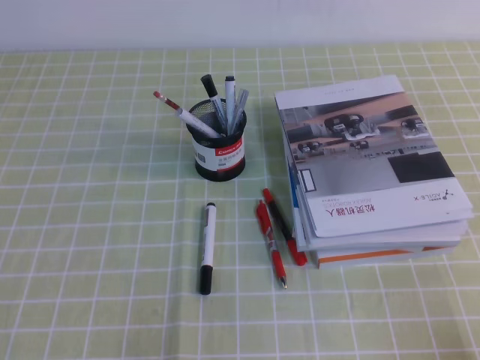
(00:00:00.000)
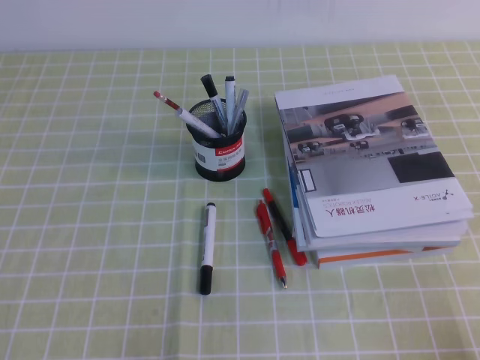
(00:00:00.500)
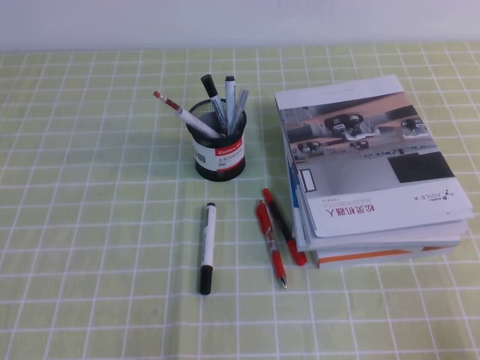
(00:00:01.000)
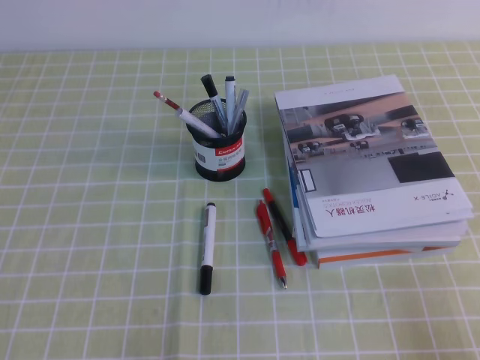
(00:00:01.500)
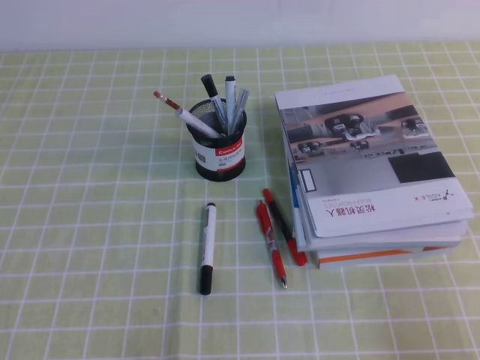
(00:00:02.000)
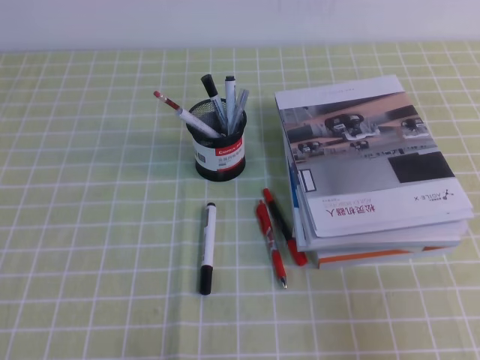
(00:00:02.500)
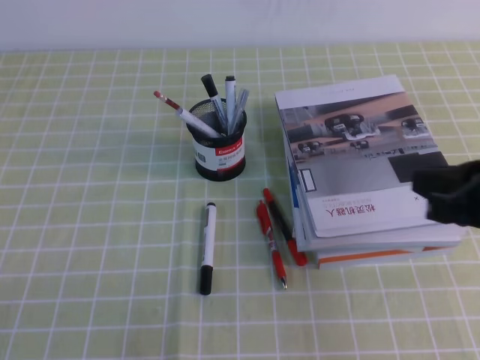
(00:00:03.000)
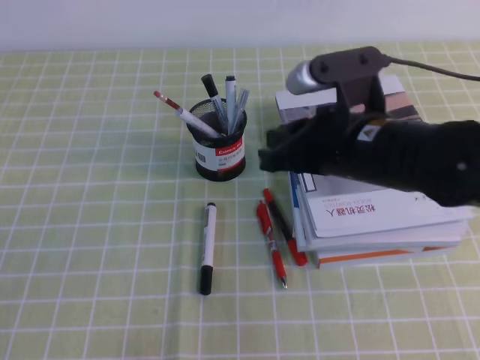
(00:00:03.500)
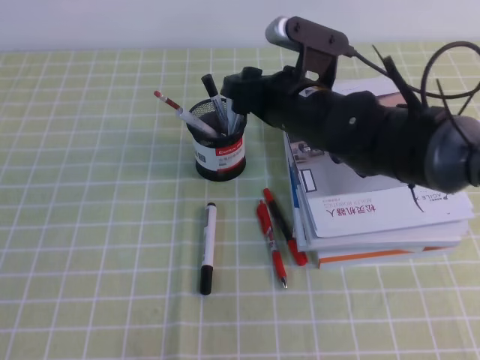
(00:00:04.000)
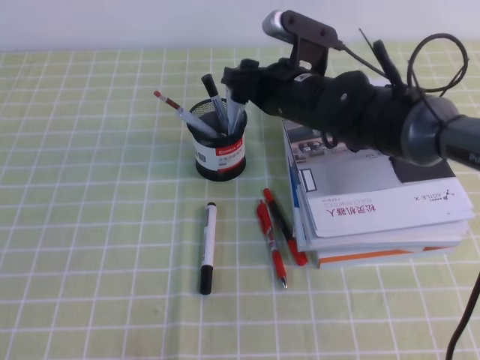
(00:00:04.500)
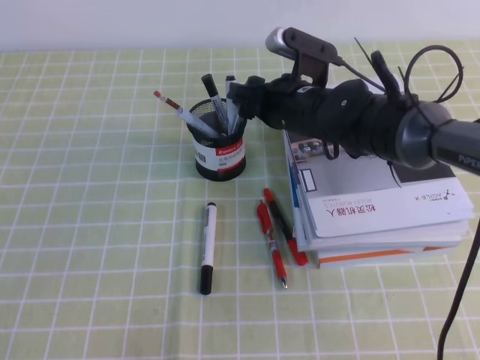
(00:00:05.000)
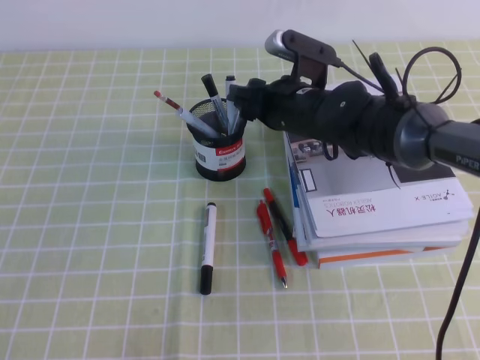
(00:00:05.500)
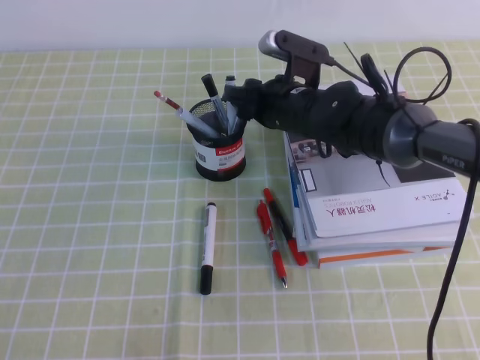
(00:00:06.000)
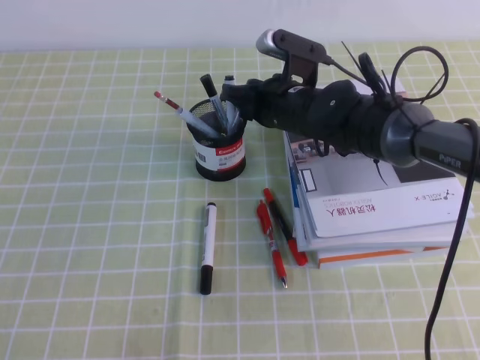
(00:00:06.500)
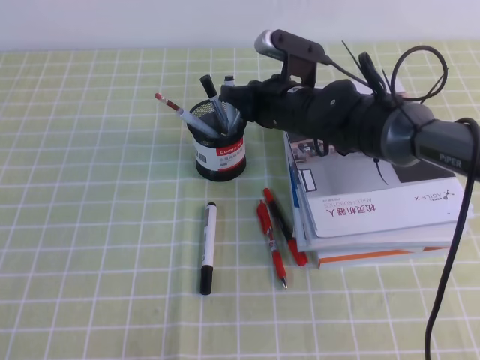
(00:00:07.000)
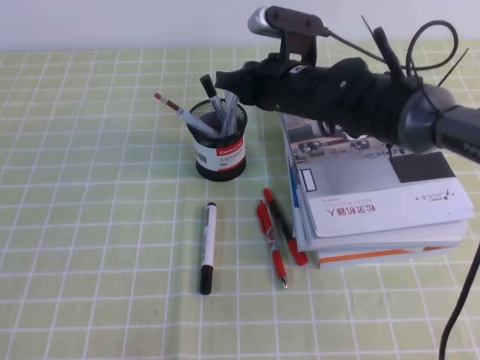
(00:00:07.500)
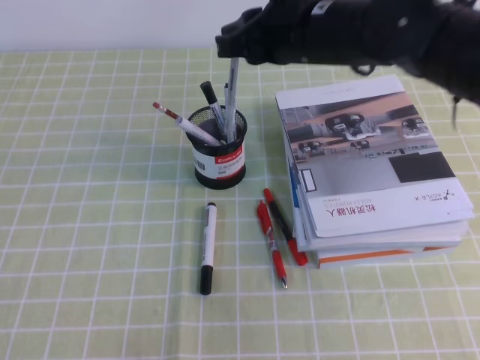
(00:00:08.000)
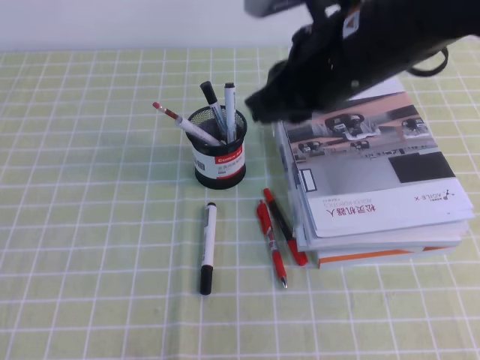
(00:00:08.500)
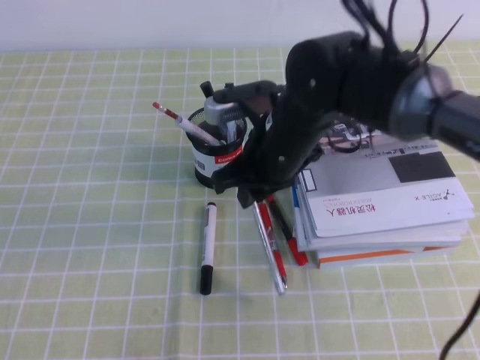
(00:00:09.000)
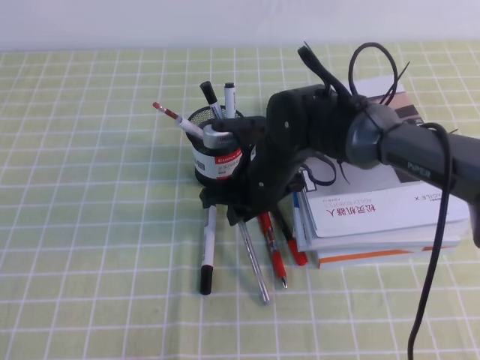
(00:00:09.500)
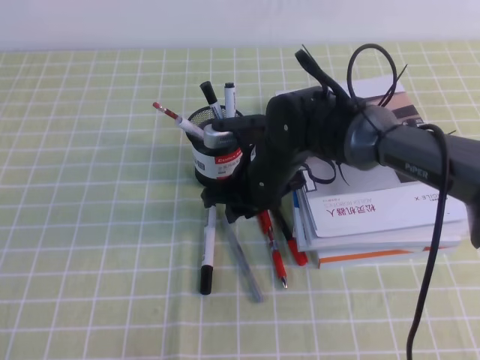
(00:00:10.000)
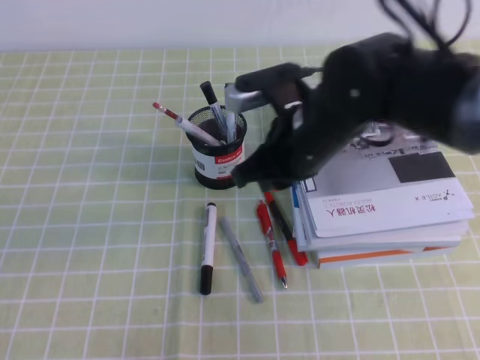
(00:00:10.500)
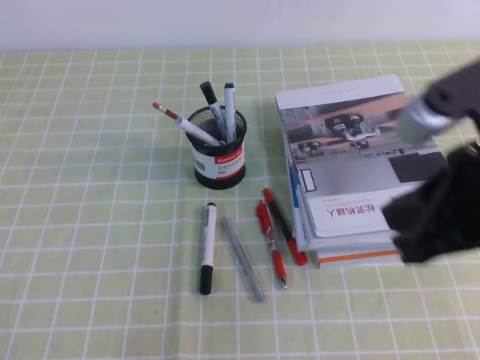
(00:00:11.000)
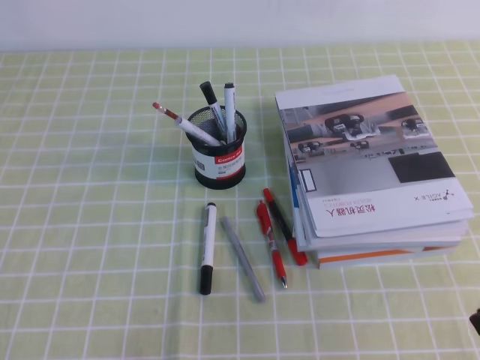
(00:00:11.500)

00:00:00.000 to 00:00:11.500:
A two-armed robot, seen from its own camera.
00:00:02.000 to 00:00:04.000: The right gripper heads forward and to the left, covering about 40 cm, and opens its fingers.
00:00:04.000 to 00:00:06.000: The right gripper shifts roughly 5 cm forward.
00:00:06.000 to 00:00:07.500: The right gripper closes.
00:00:07.500 to 00:00:09.500: The right gripper travels backward by roughly 5 cm, and travels upward and back again, roughly 10 cm each way.
00:00:09.500 to 00:00:11.500: The right gripper moves backward, to the right and upward, some 35 cm.

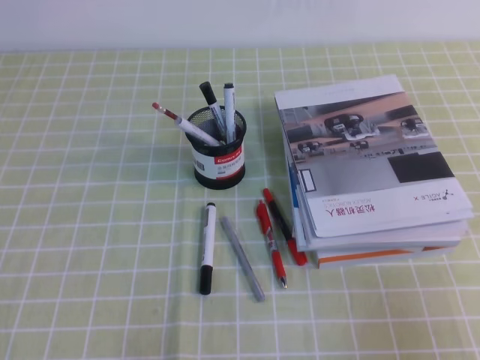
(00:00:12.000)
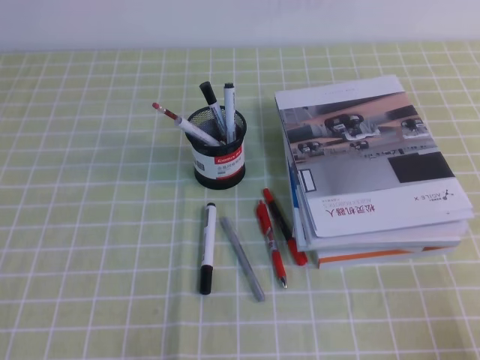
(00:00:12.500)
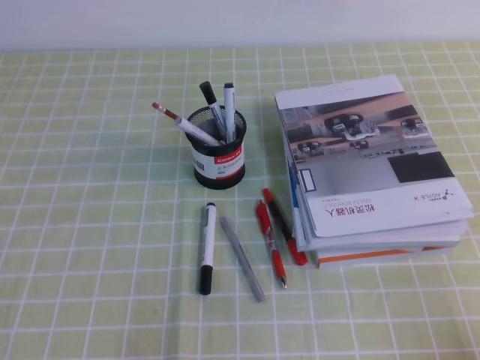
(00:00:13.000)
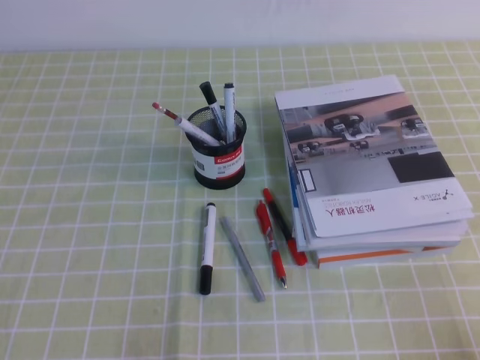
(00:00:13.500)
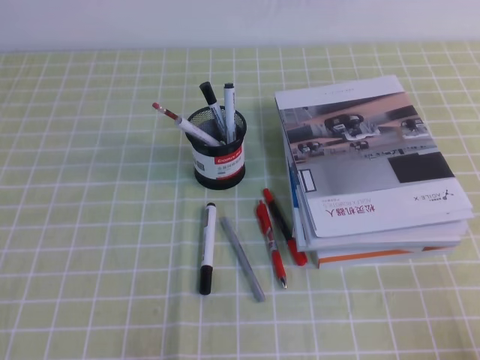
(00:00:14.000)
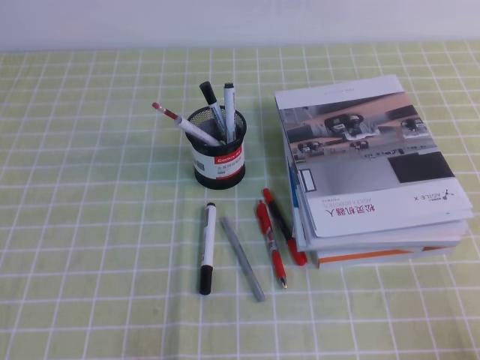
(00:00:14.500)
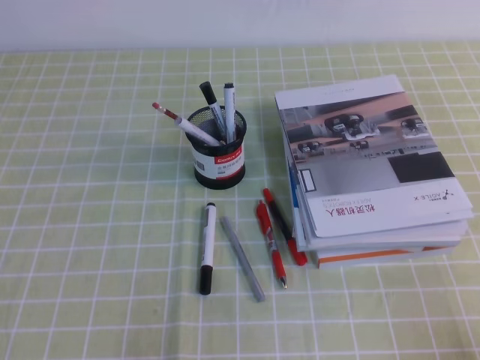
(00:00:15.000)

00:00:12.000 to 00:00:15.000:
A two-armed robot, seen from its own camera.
00:00:12.000 to 00:00:13.500: The right gripper moves downward and backward, approximately 10 cm.
00:00:13.500 to 00:00:15.000: Both grippers stay put.
